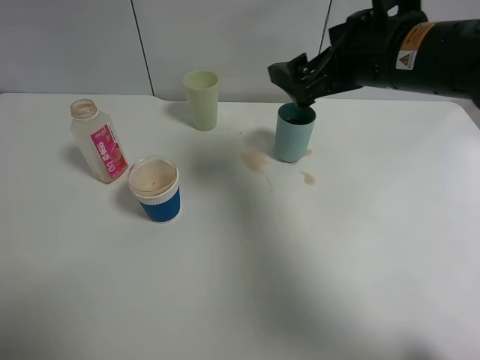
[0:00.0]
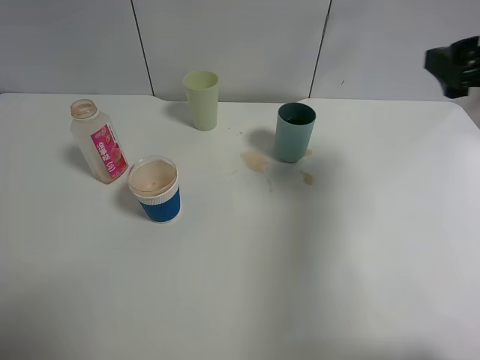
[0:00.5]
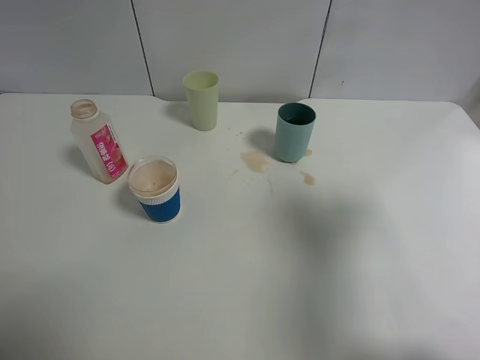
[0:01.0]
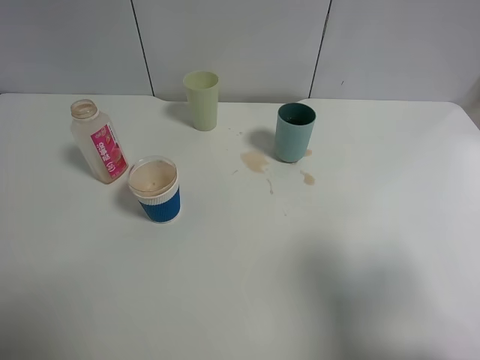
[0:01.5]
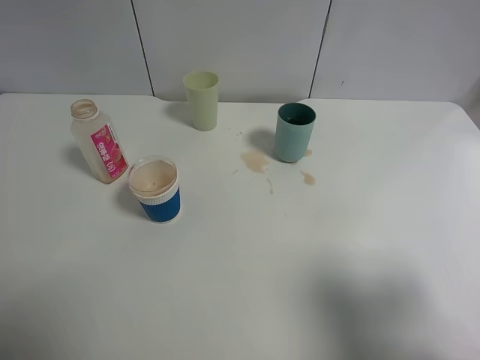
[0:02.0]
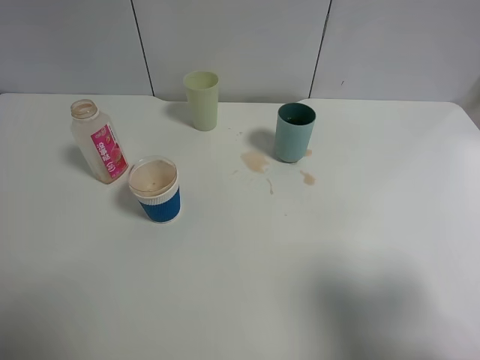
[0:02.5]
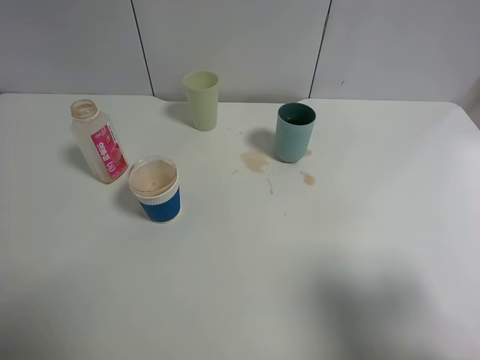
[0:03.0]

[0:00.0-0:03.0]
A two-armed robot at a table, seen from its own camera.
Task of the whole recording: use a clamp to hold the bottle of the drink, pour the beverage into a random cup, then clamp the cup containing the drink and pour the drink into another random cup.
0:00.0 to 0:01.5: The right gripper shifts about 30 cm backward and to the right.

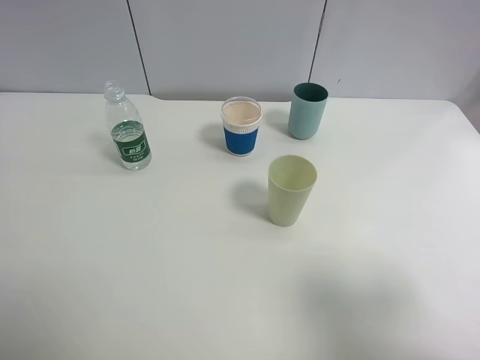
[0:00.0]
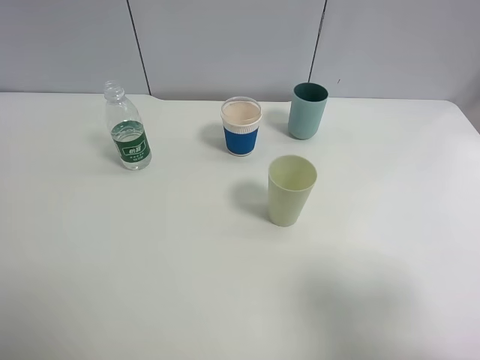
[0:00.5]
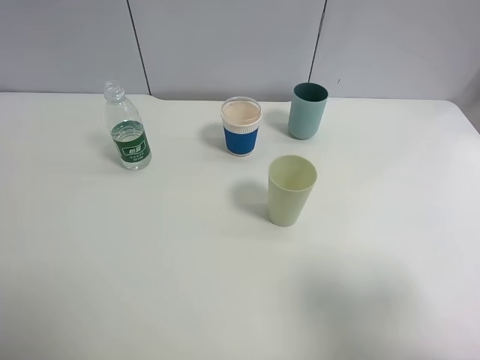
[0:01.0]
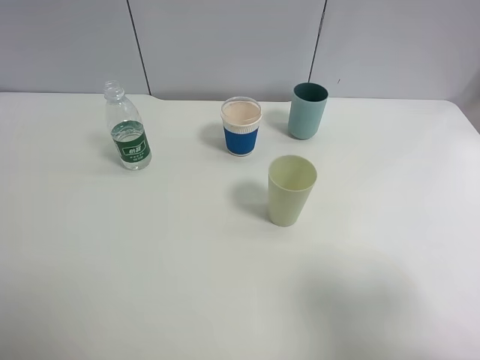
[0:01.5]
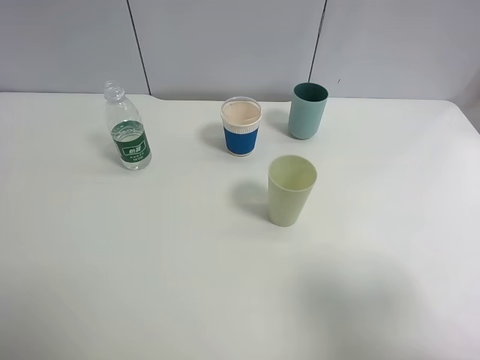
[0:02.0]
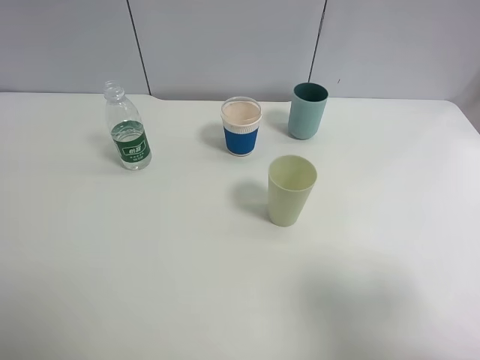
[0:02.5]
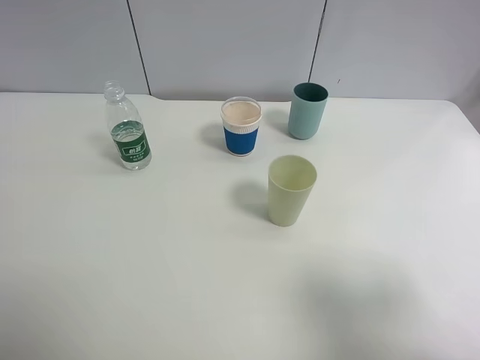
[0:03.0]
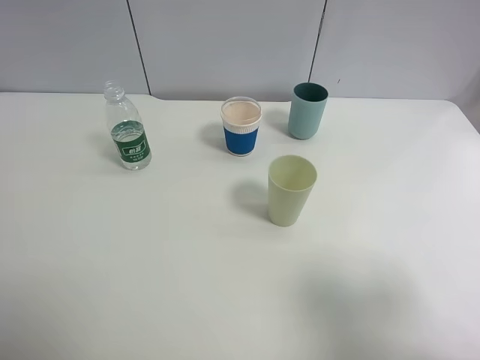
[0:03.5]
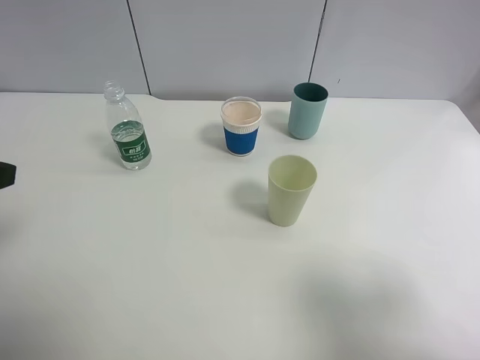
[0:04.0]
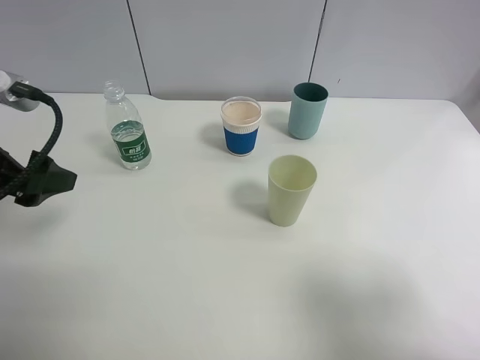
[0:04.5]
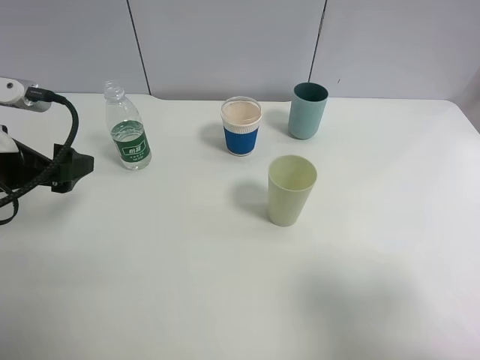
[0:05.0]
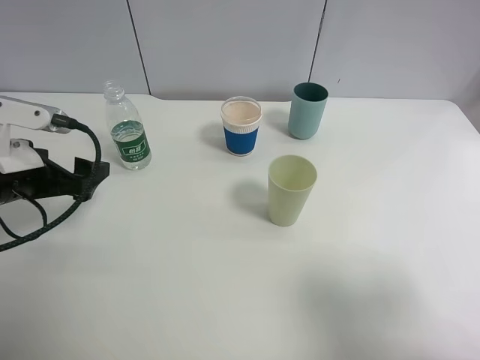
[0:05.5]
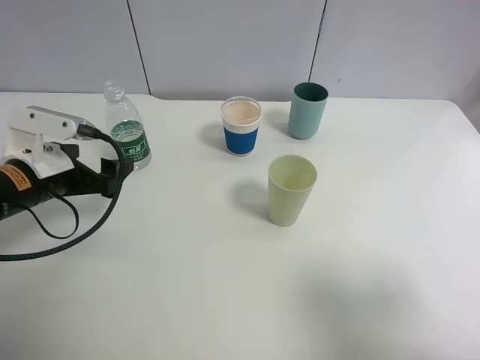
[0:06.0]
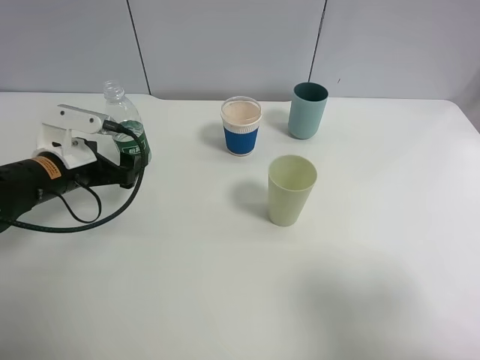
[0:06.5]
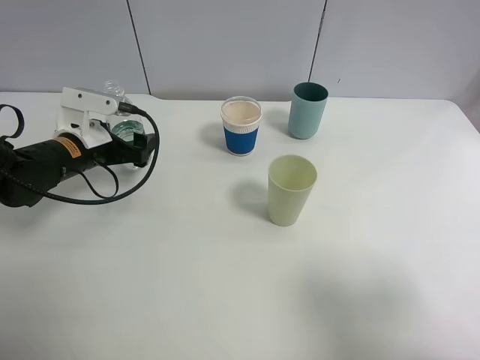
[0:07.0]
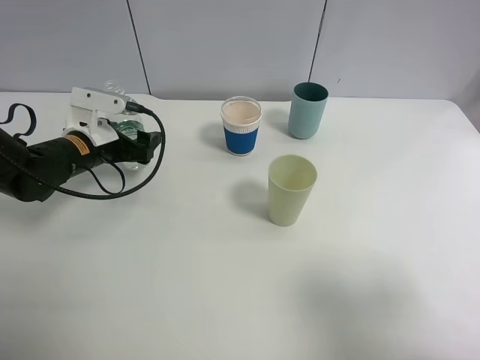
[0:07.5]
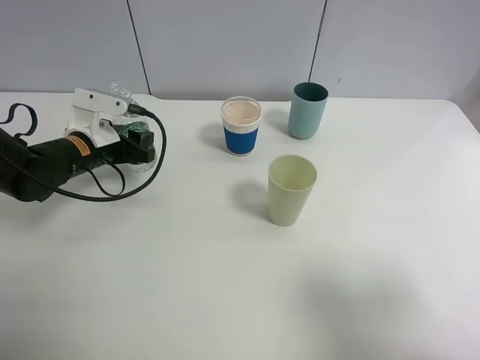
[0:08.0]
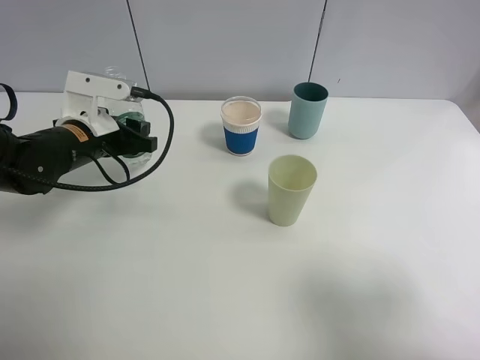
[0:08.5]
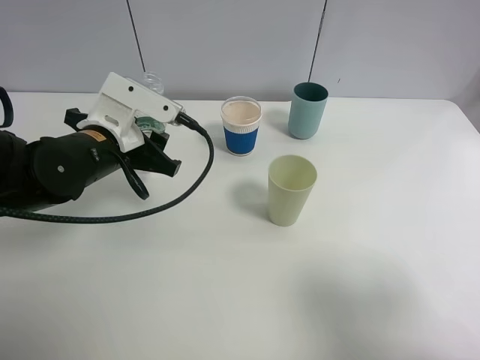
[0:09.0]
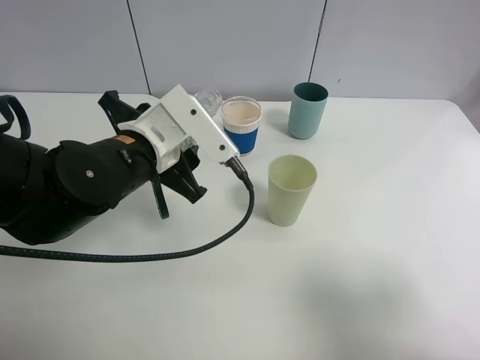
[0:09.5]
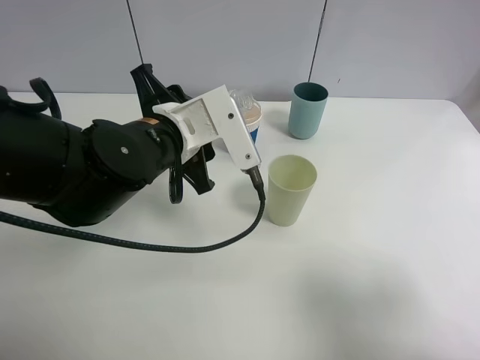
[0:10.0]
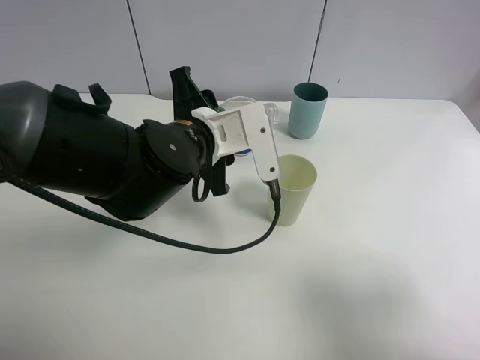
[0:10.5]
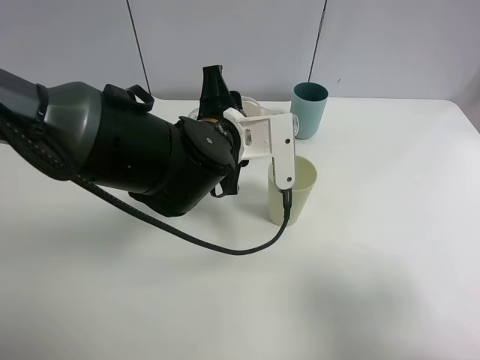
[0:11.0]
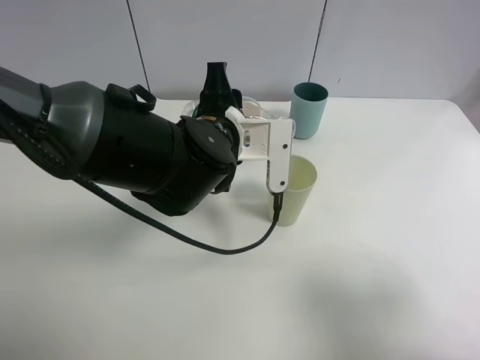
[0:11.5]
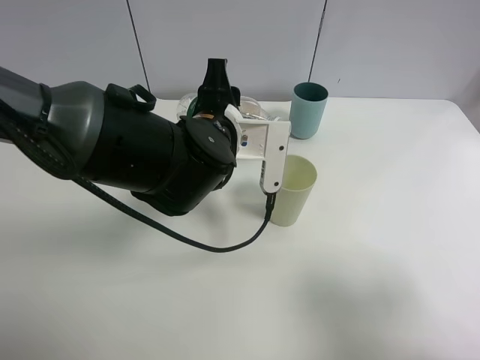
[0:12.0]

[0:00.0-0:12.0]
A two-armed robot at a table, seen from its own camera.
Task of the whole recording: use a clamp to hold the bottle of the drink, pour the beverage into a random cup, then clamp the cup containing the drink and pour the drink into another random cup.
Step, 0:00.0 to 0:08.5: Pick up the water bottle with left gripper.
0:00.0 to 0:02.0: Both grippers stay about where they are.
0:04.0 to 0:06.0: The left gripper goes about 20 cm downward and forward.
0:06.0 to 0:08.0: The left gripper goes roughly 10 cm forward, and closes its fingers.
0:08.0 to 0:10.0: The left gripper is displaced to the right, upward and backward by roughly 20 cm.
0:10.0 to 0:12.0: The left gripper changes place by approximately 5 cm.

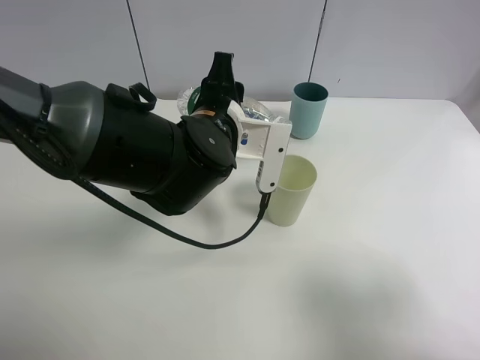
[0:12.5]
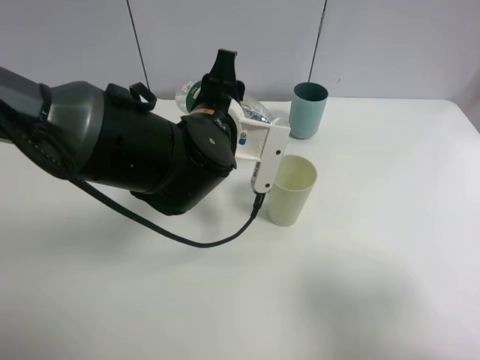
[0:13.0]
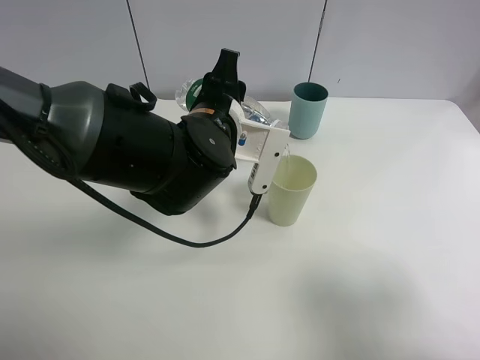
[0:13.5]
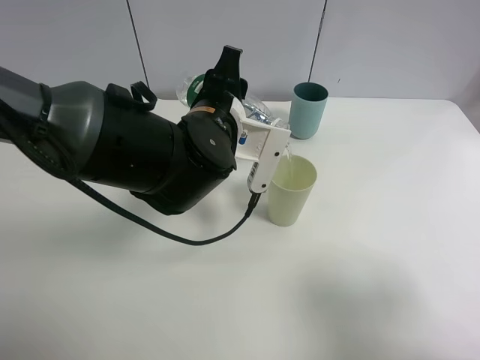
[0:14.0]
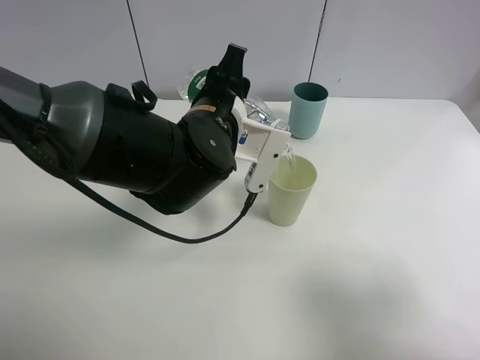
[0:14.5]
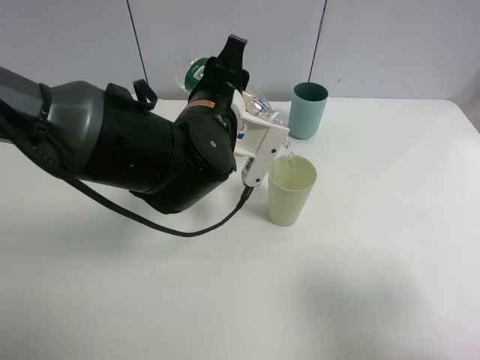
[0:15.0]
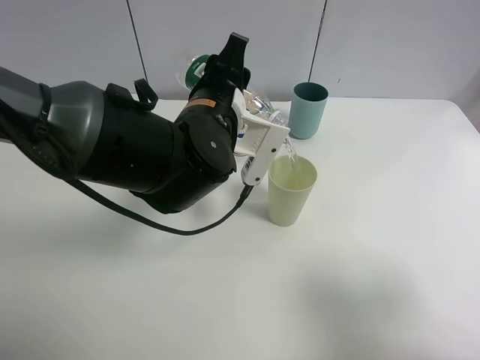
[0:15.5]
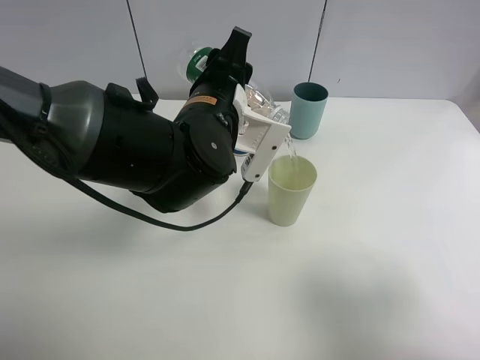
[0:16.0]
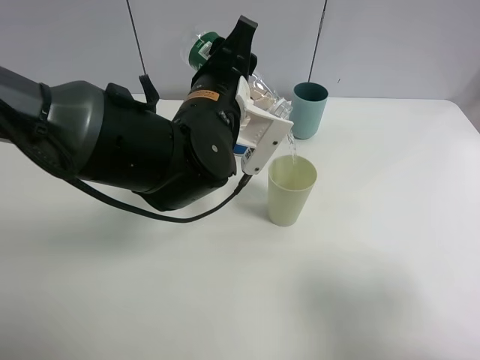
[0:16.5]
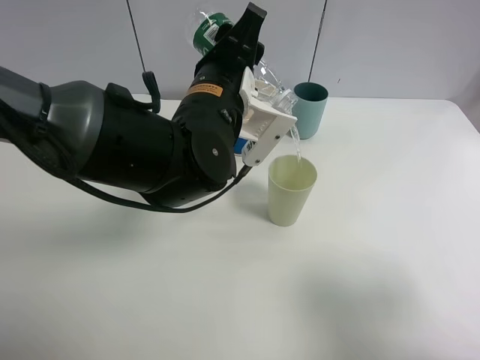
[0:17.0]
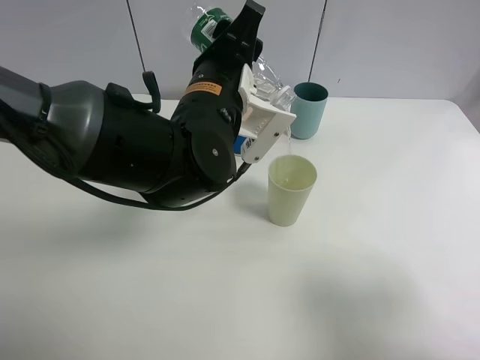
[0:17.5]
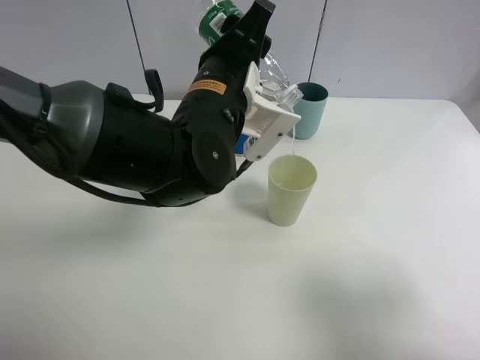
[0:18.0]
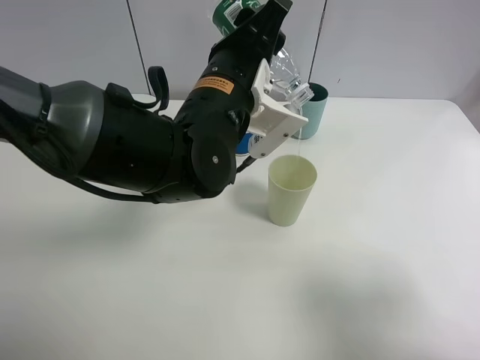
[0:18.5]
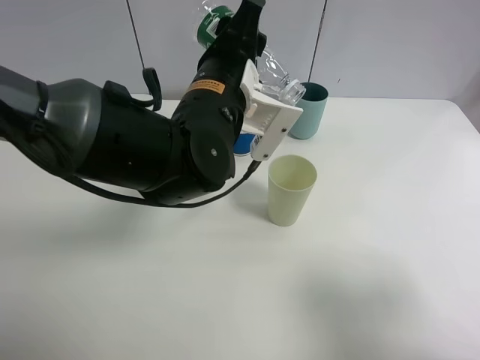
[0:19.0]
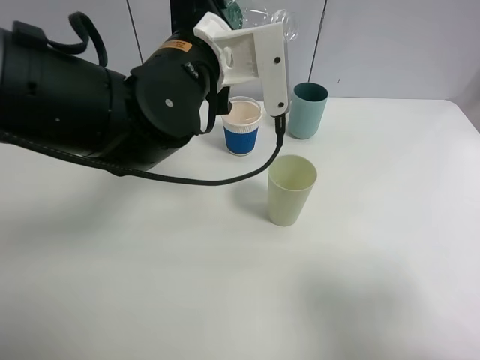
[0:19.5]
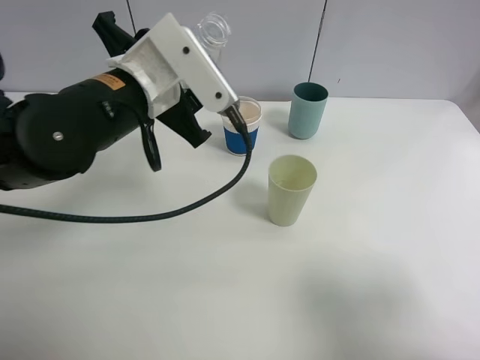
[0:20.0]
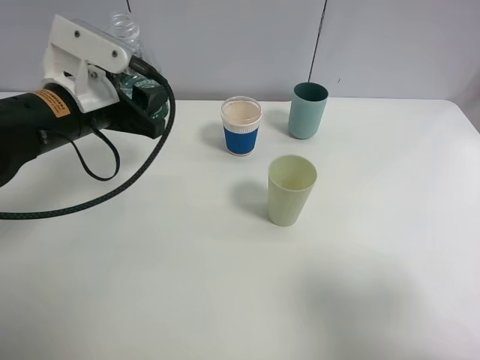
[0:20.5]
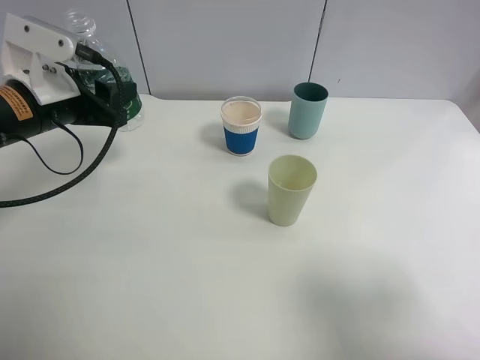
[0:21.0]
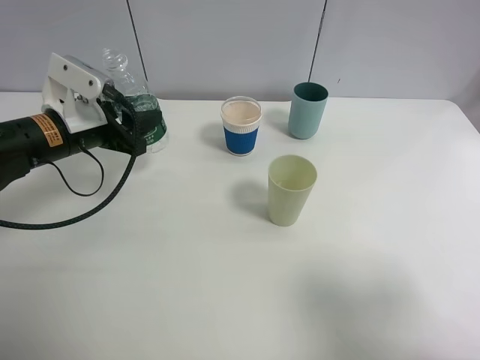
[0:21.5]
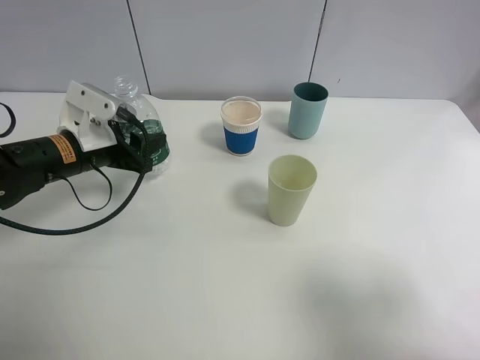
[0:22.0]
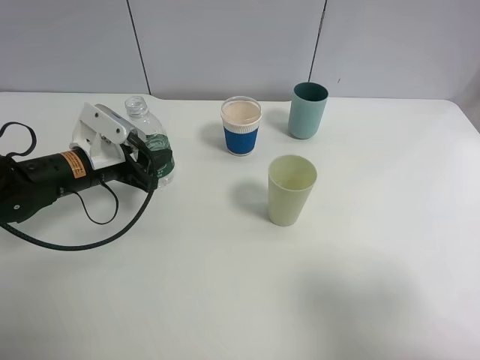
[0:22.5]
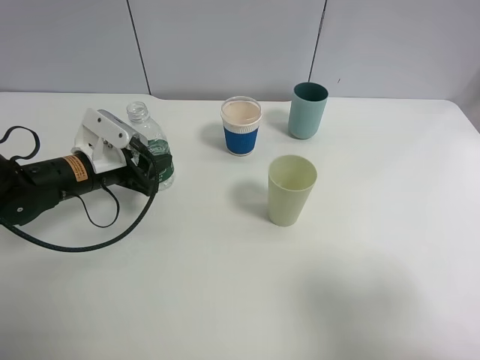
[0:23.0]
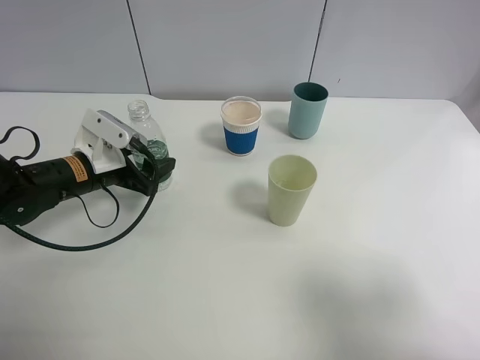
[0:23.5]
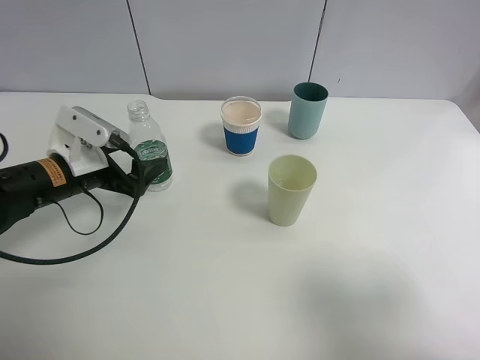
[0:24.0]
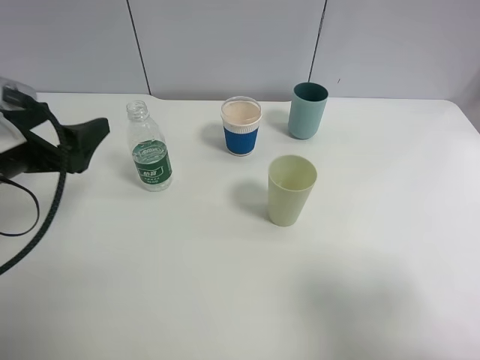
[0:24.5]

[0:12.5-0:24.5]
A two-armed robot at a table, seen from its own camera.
Task of the whole recording: use a clamp to hold the bottle of the drink, pour the beverage into a random cup, then clamp the cup containing the drink and pour the drink into another random cup.
Step, 0:12.5 to 0:19.0: Pour the water into the green plastic cup with left gripper.
Step, 0:19.5 to 0:24.0: Place the water bottle on the table with left gripper.
0:12.5 to 0:14.5: The grippers move only a little.
0:14.5 to 0:16.5: The grippers stay close to where they were, moving slightly.
0:16.5 to 0:18.5: There are only small adjustments of the grippers.
0:18.5 to 0:20.5: The left gripper is displaced to the left by about 15 cm.
0:20.5 to 0:22.5: The left gripper goes some 10 cm downward.
0:22.5 to 0:24.5: The left gripper is displaced upward and backward by roughly 15 cm, and opens its fingers.
